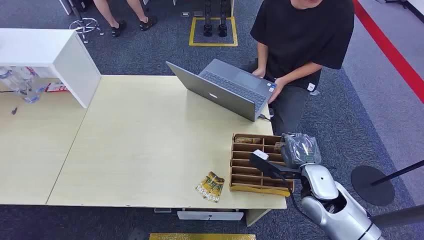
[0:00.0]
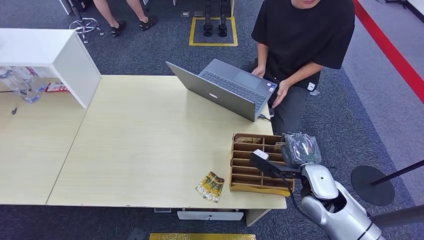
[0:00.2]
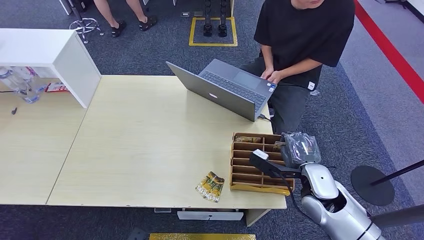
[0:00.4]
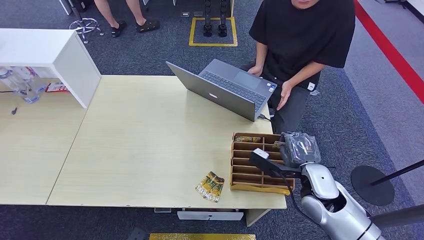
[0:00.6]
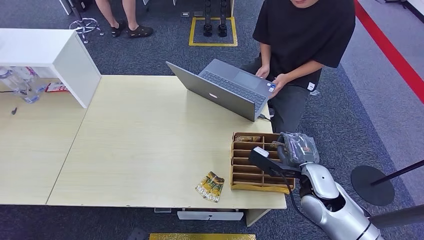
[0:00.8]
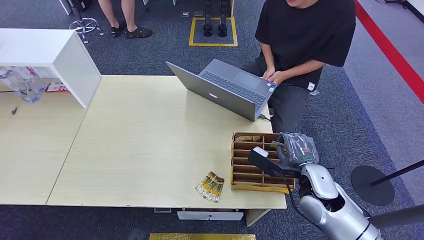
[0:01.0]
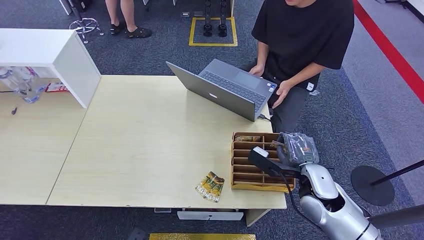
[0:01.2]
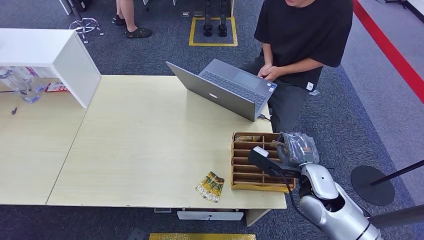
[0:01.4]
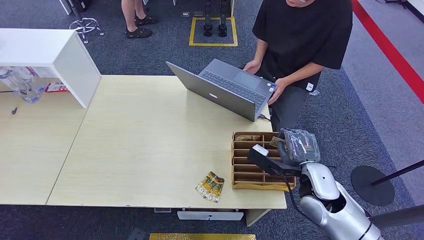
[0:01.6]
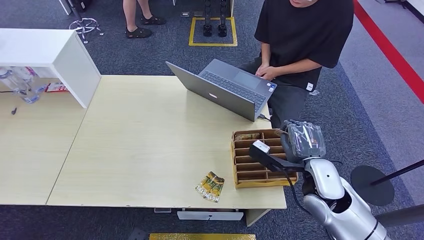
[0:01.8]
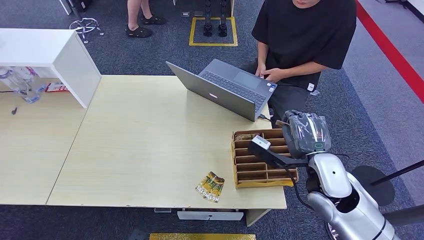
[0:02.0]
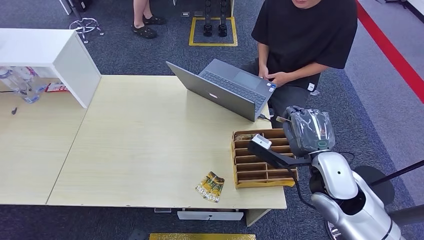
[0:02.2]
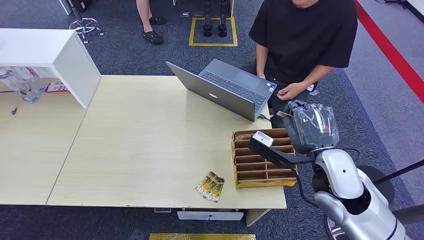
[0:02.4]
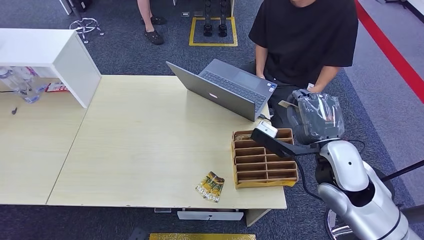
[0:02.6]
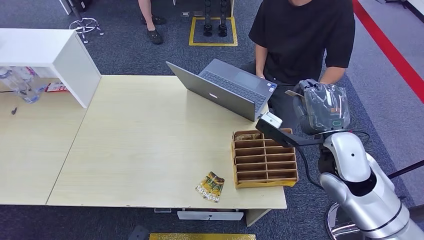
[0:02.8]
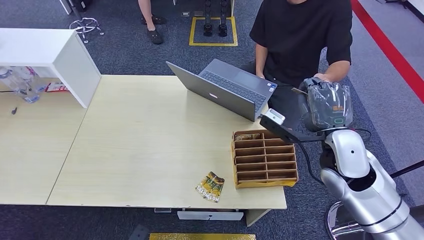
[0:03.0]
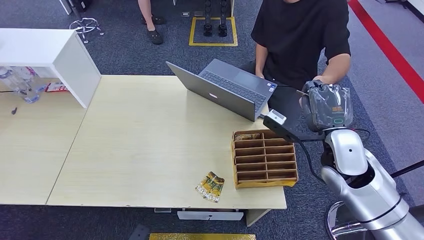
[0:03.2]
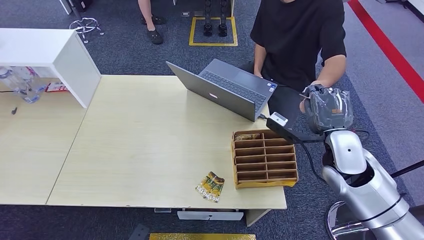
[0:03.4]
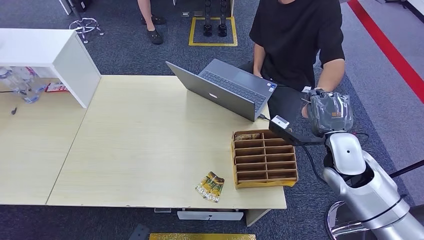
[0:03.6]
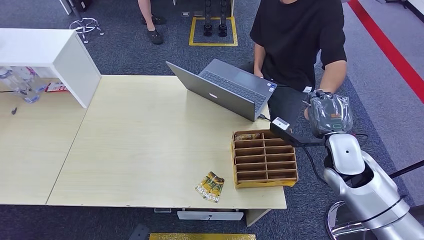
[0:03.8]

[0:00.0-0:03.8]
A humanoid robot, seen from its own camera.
Step, 0:00.0 to 0:01.4: Pick up the key card from the card box.
Step, 0:01.8 to 0:03.8: Hand the key card to the target.
0:01.2 to 0:02.6: The right hand shifts about 10 cm upward.
0:02.6 to 0:03.8: The right hand heads to the right, covering roughly 5 cm.
